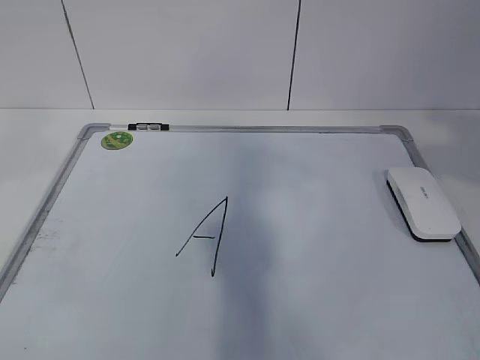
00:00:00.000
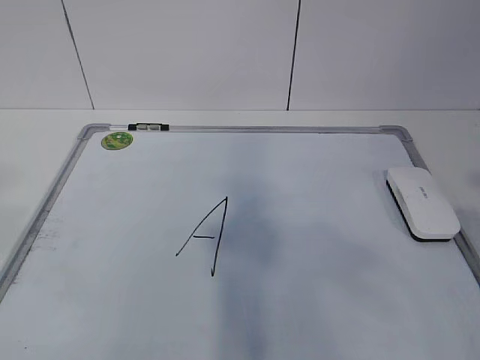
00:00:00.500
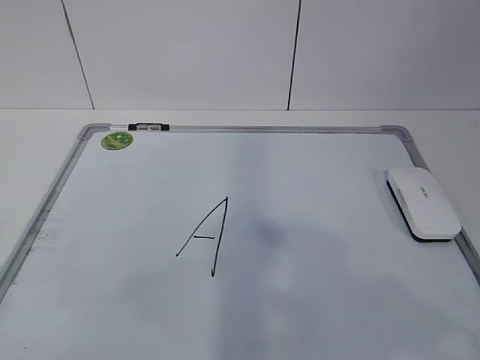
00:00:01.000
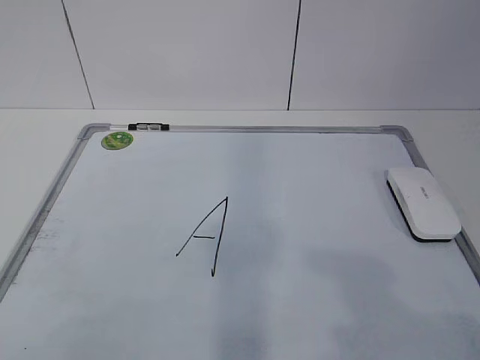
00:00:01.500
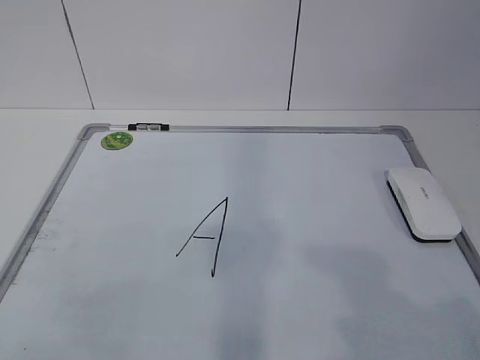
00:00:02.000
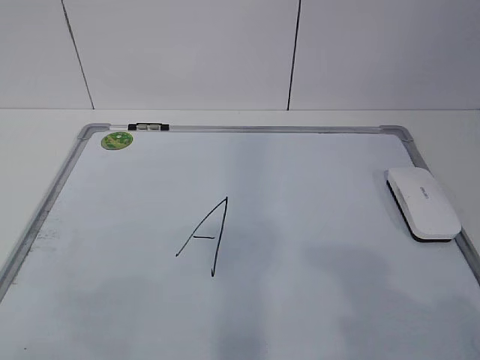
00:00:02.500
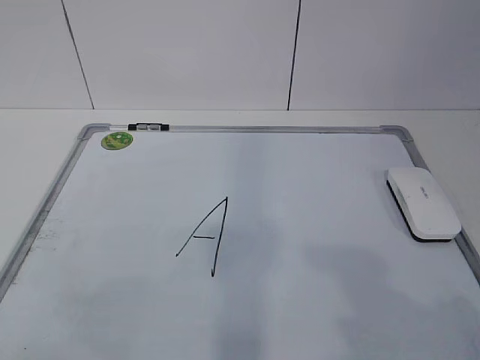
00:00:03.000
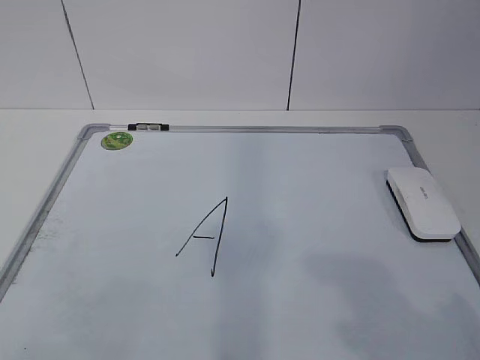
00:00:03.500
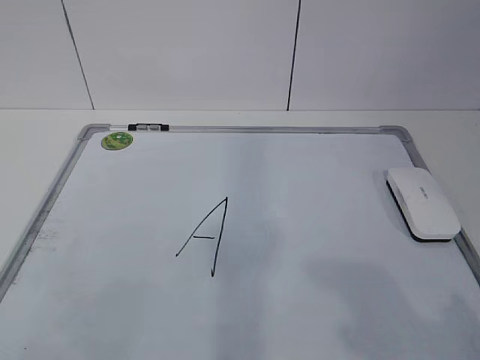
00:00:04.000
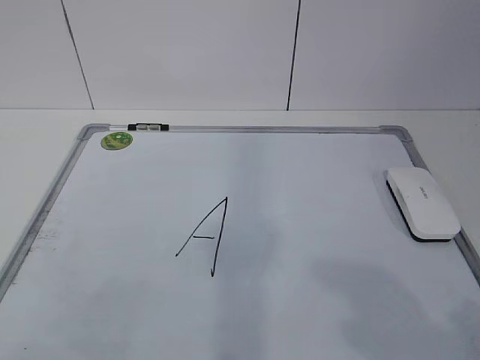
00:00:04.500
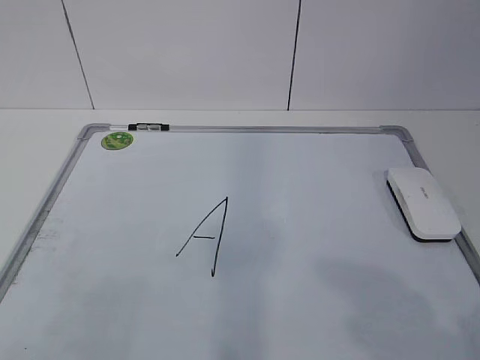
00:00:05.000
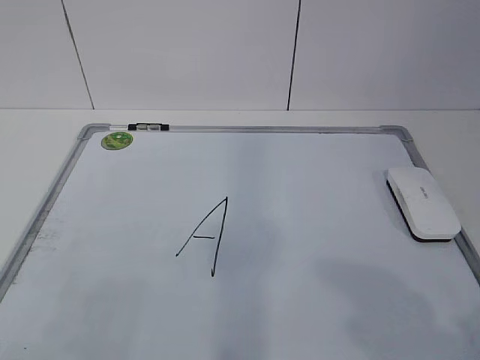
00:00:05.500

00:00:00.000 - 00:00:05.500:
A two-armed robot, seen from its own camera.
Task of the whole recording: pick up the eraser on the blackboard and erase the letter "a".
00:00:00.000 - 00:00:02.000: The right gripper heads downward and backward, covering some 20 cm; the left gripper travels downward by roughly 20 cm.
